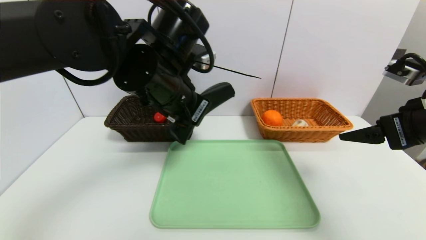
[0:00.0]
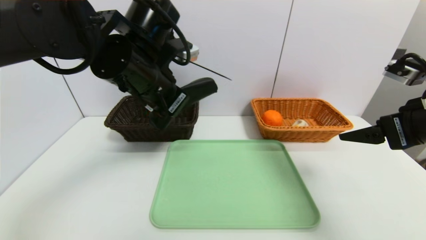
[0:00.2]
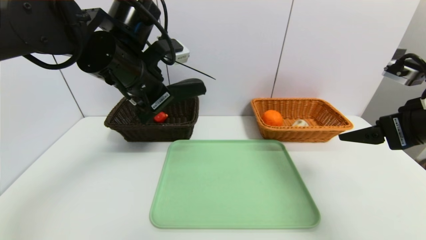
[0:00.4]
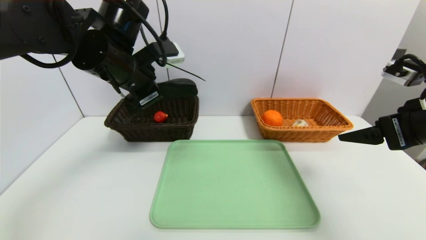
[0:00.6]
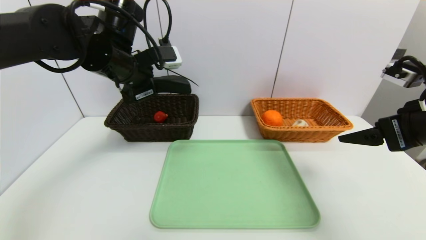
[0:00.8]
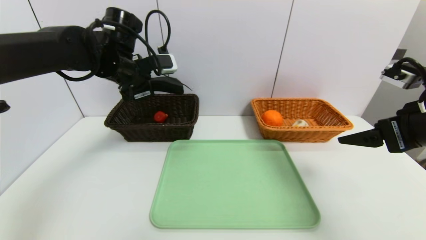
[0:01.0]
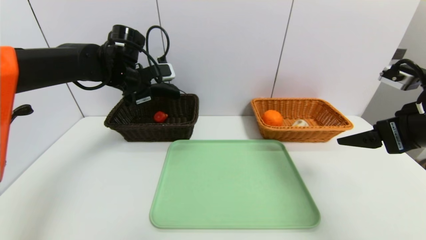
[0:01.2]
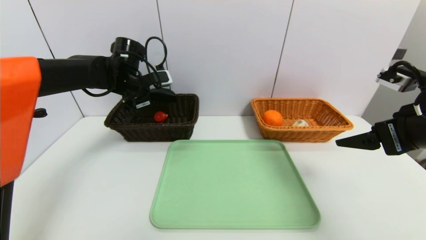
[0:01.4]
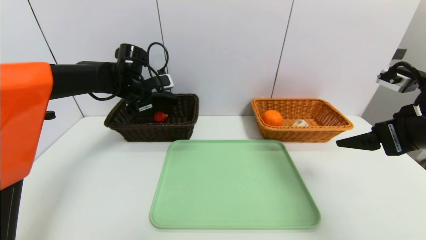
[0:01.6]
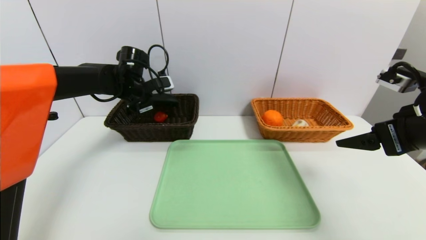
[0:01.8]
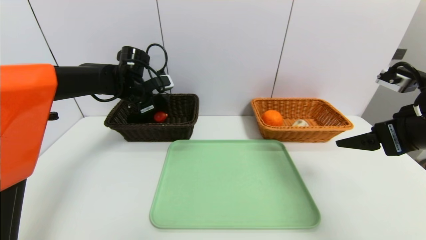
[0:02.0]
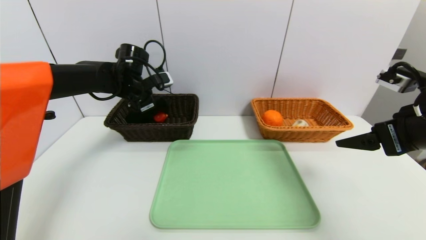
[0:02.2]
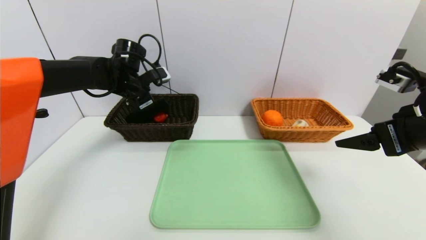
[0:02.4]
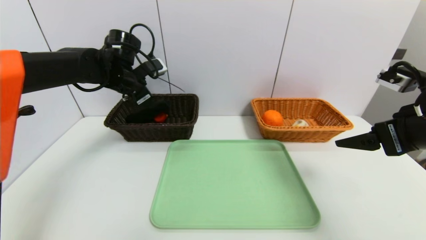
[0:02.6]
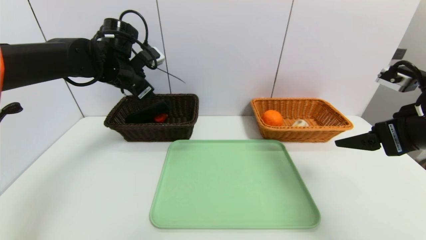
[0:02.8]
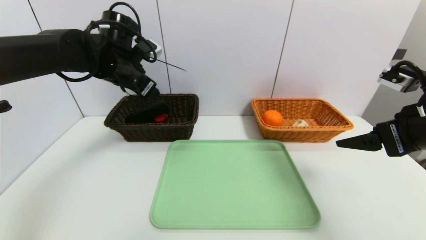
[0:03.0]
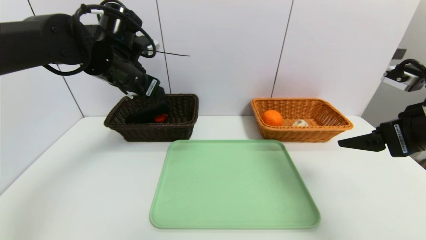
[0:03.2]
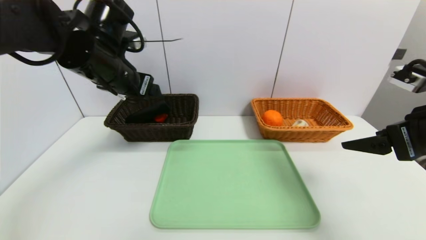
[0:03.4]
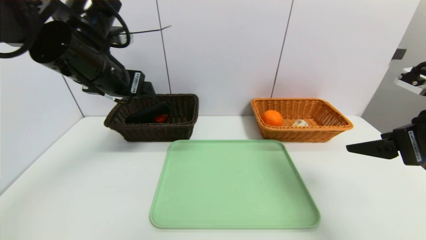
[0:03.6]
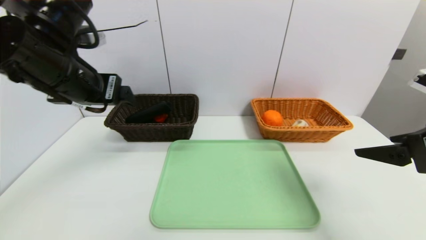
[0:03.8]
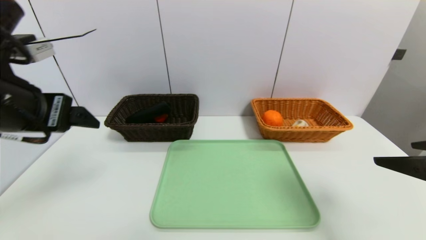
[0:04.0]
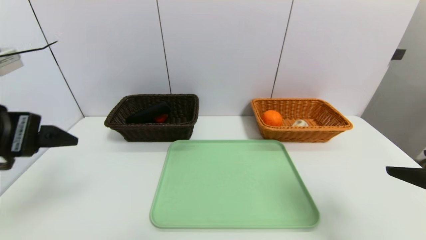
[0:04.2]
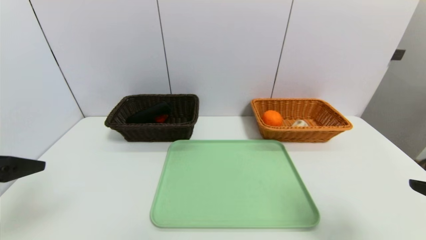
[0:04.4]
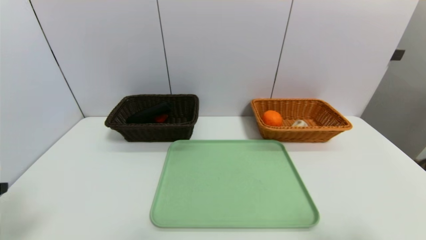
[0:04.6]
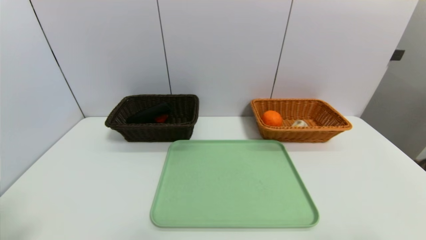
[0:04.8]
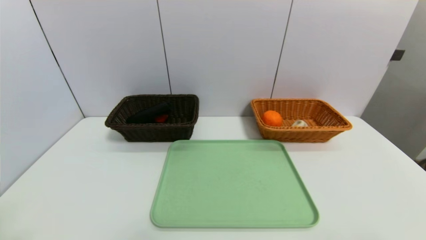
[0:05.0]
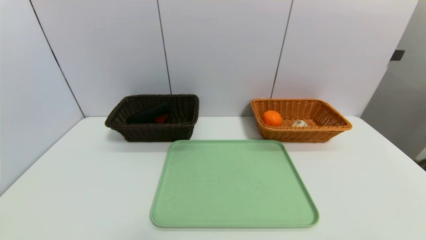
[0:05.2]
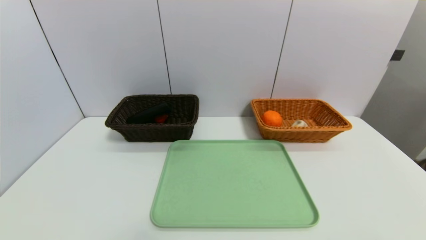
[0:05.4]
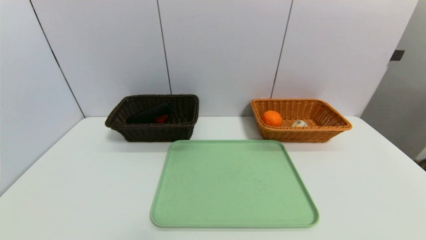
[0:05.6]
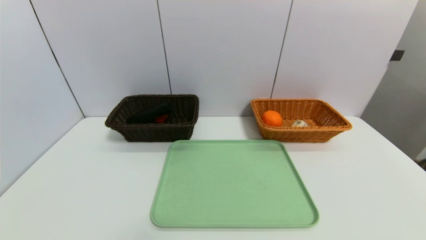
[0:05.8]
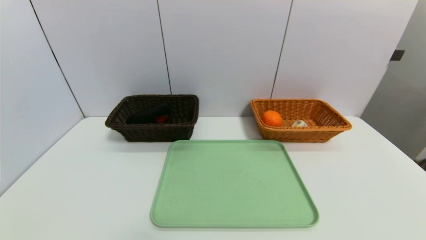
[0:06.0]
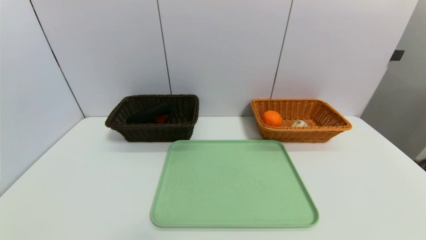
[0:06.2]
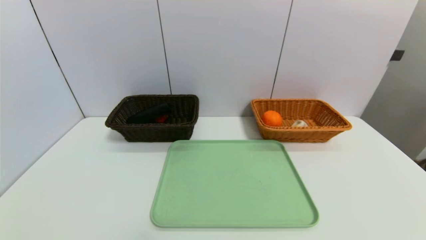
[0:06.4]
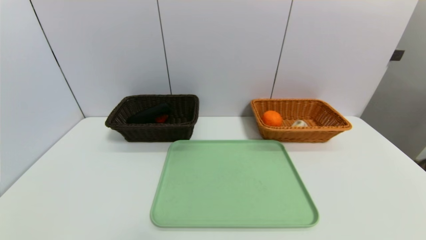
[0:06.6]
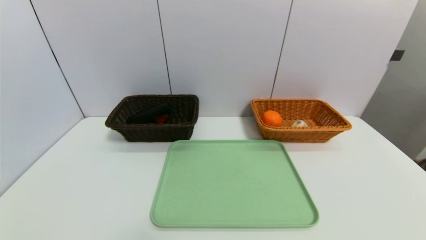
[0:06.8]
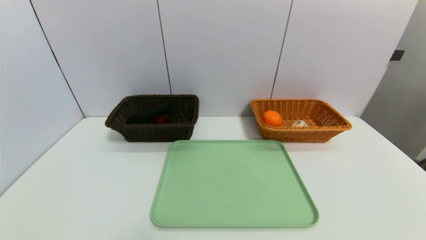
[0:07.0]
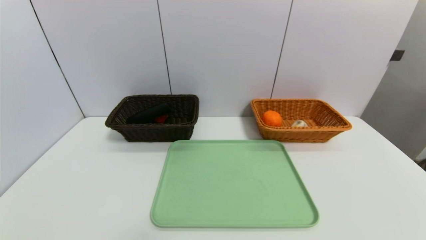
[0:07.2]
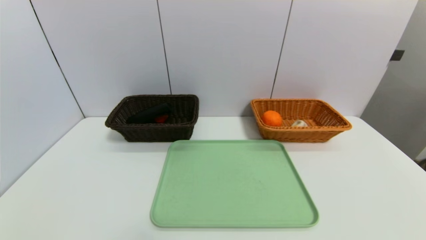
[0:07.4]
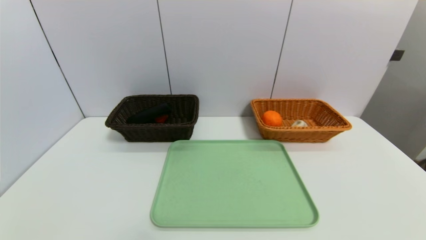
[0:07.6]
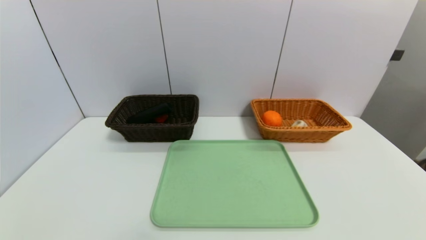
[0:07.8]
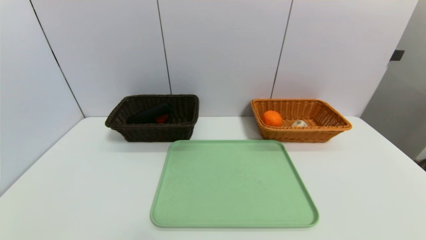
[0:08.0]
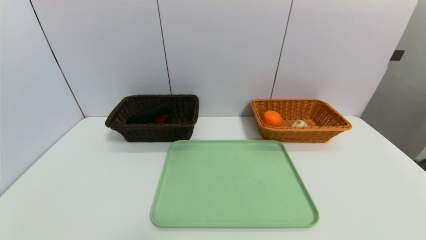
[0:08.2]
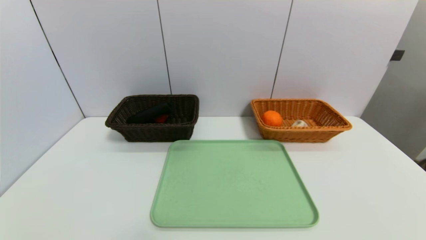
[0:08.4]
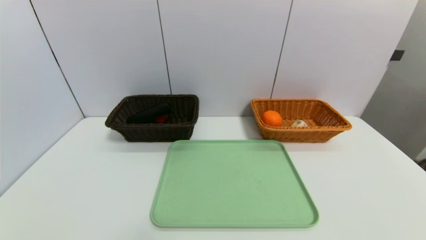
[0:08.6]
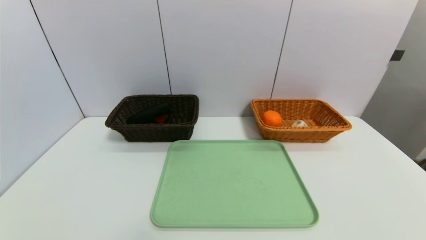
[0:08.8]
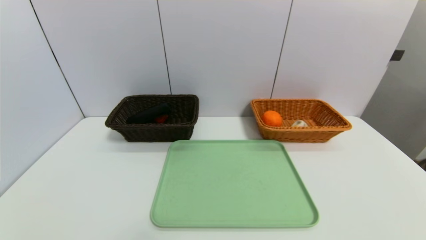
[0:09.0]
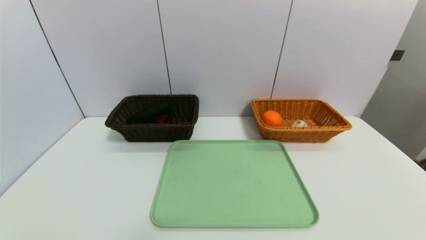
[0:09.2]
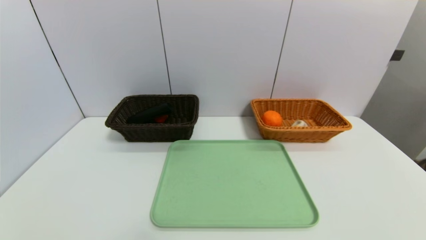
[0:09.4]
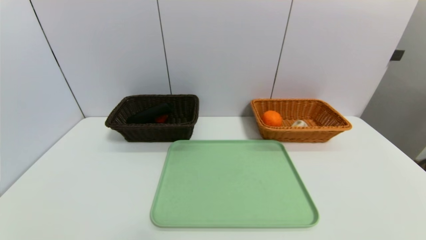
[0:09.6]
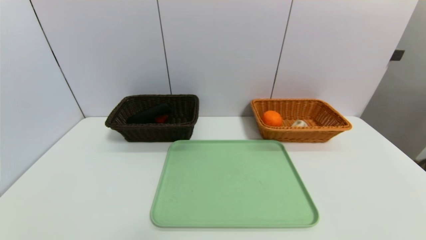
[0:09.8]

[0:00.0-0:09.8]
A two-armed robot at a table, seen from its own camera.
Task of the whole recording: place the food in the right basket with the right gripper, and place the non food items in the left basket with the left gripper.
Step, 0:00.0 to 0:02.8: Grasp the glasses case and put it in the left basket.
0:00.0 to 0:01.4: The left gripper is displaced forward and to the left by approximately 20 cm.
0:01.4 to 0:02.8: The left gripper opens.
0:02.8 to 0:04.2: The right gripper shifts about 10 cm backward, while the left gripper shifts some 25 cm backward.
0:04.2 to 0:05.6: The left gripper travels backward and downward by some 20 cm; the right gripper is displaced backward by roughly 10 cm.

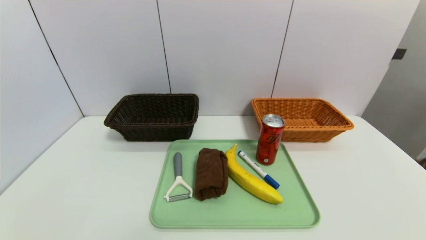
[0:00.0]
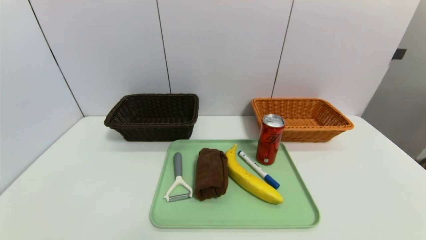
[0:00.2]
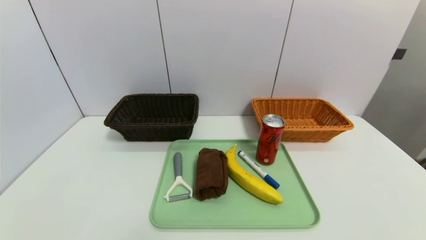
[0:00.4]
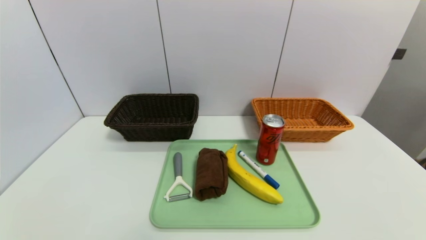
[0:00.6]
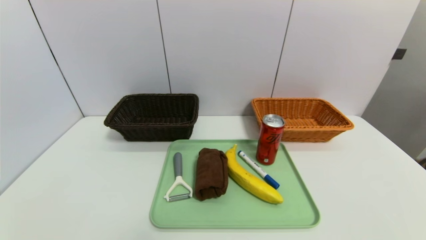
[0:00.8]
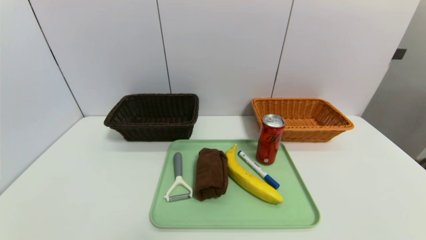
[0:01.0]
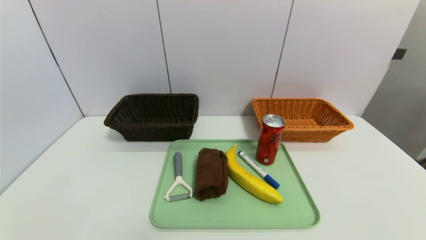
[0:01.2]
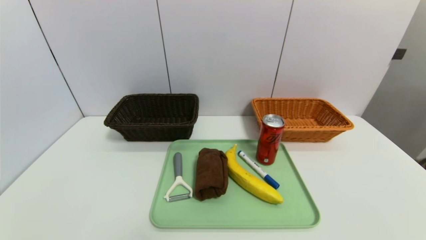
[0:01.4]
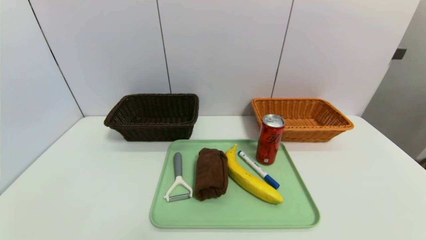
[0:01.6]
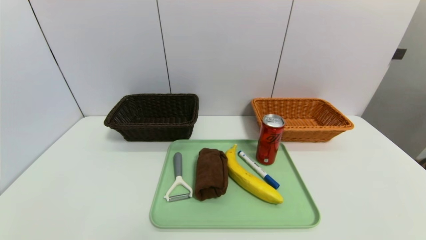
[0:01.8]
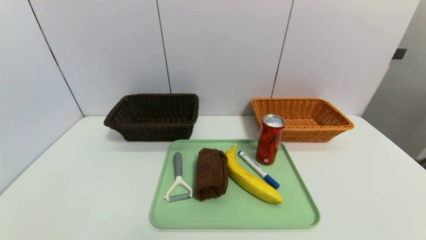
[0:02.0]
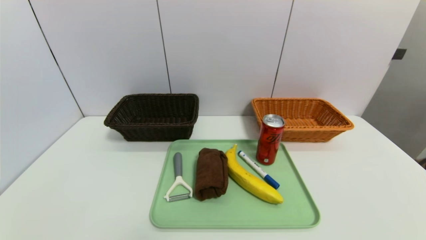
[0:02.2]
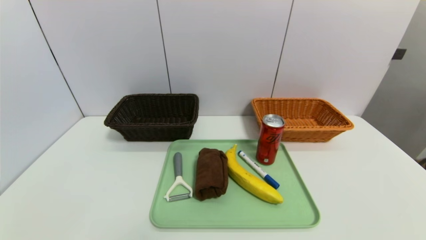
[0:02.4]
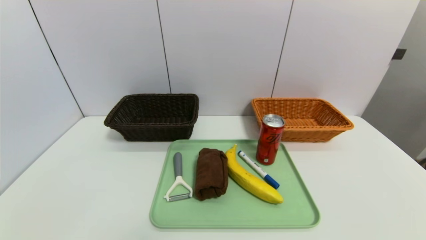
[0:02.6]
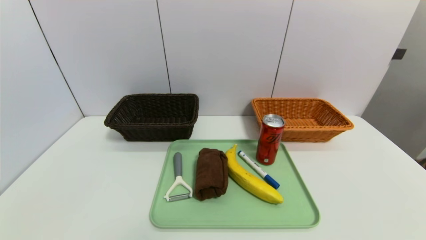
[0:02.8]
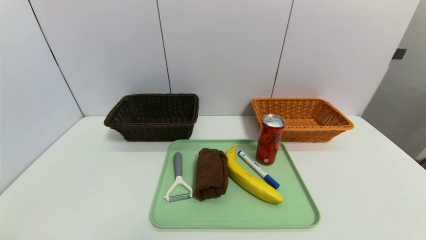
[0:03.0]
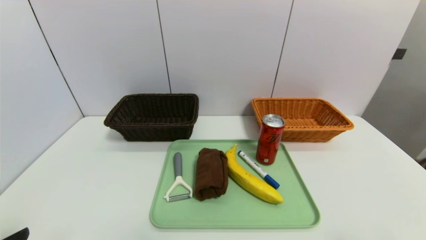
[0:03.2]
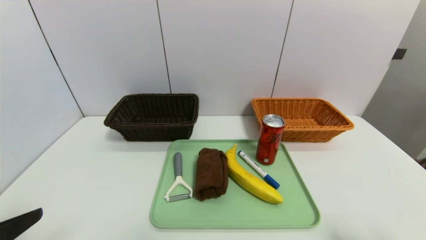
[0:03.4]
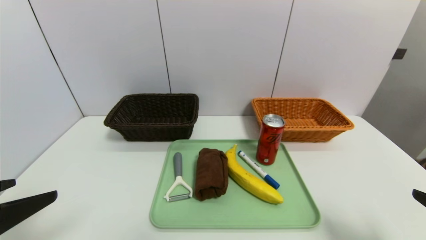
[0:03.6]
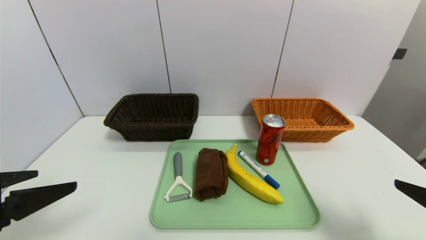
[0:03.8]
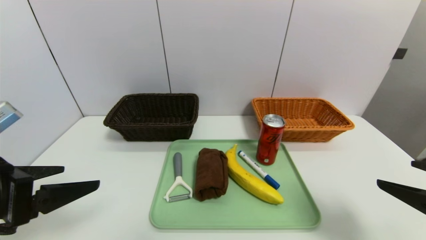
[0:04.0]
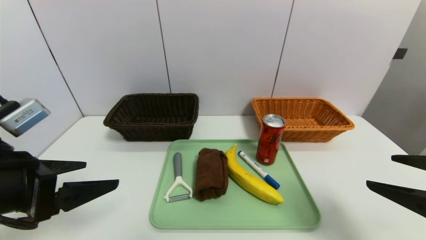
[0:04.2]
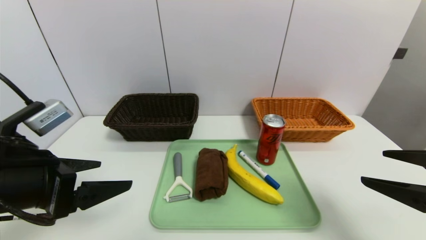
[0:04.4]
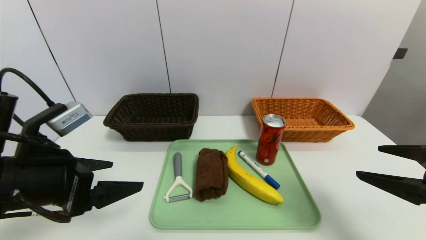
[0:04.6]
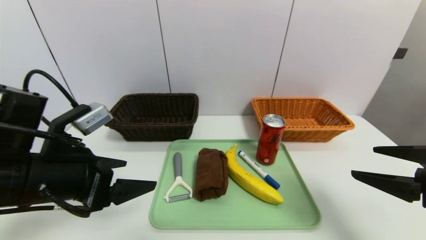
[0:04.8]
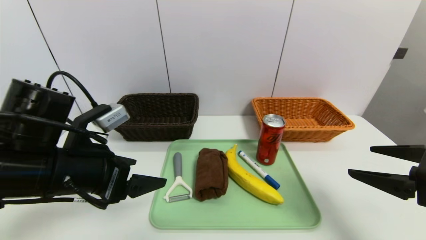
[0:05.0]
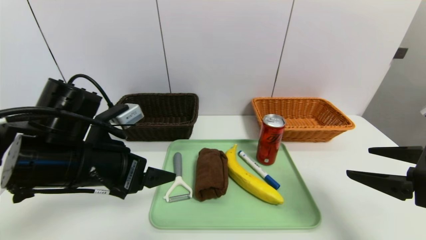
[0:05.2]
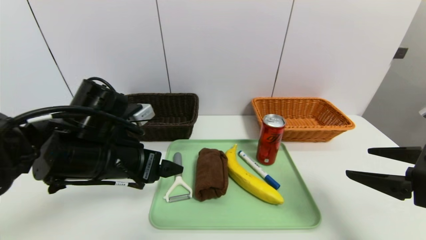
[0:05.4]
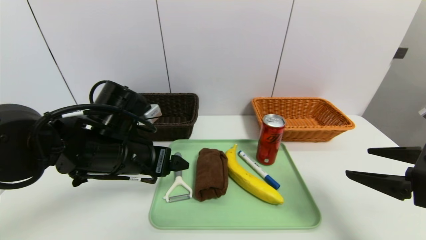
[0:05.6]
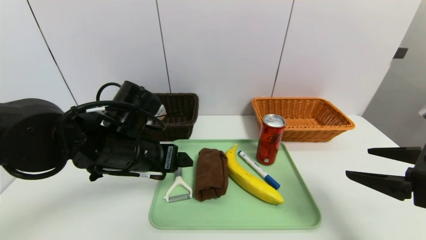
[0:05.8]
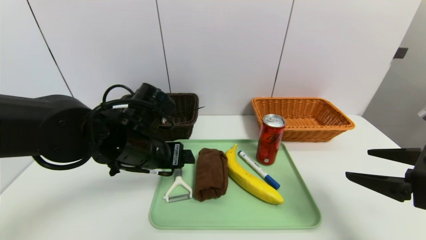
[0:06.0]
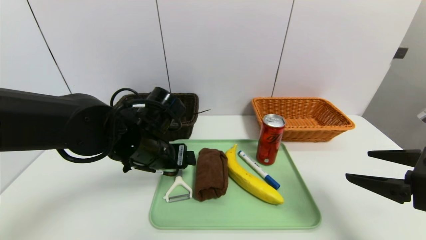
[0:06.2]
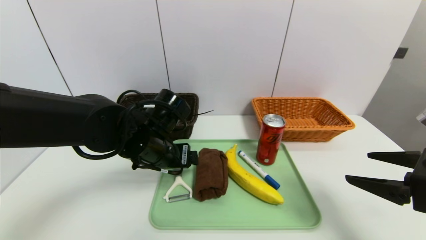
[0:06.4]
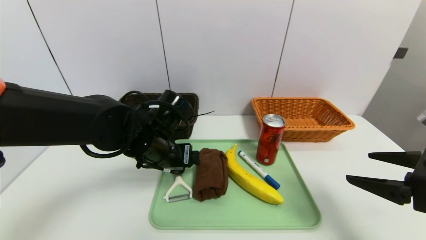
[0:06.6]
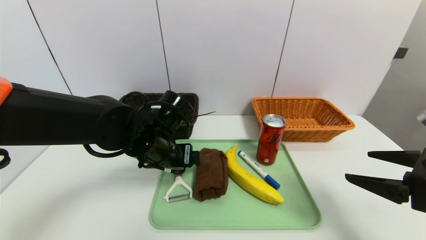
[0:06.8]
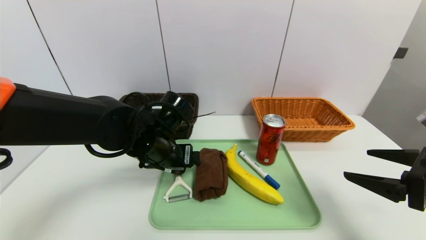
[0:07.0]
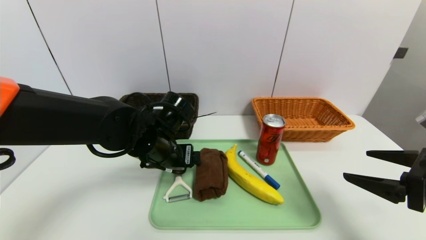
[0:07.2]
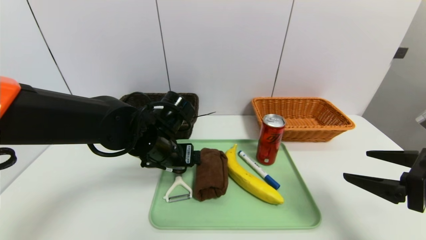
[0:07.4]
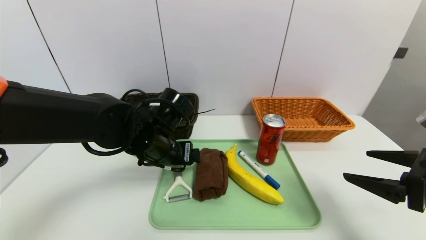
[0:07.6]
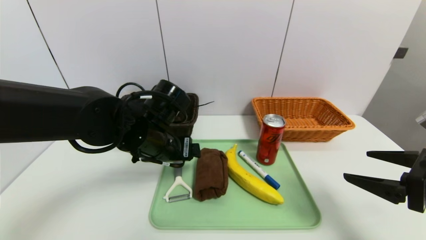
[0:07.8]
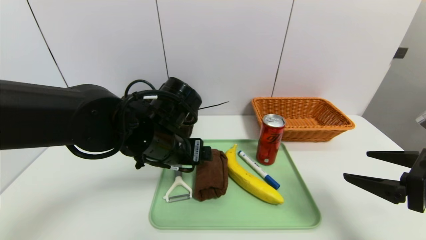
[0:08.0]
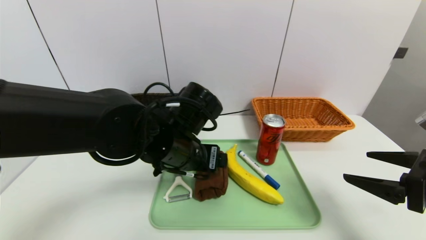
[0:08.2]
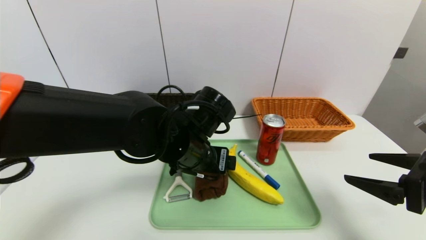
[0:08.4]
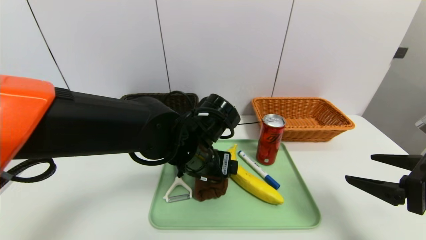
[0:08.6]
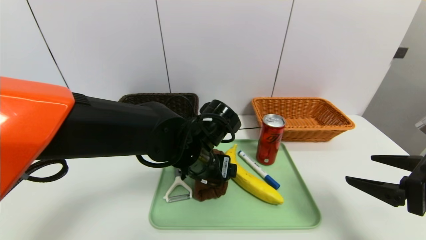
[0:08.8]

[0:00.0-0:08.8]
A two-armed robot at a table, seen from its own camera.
Task of the whole recording: place the food in the right basket with the right gripper, and place the non food items in the left basket with the left gripper.
0:00.0 to 0:01.4: Neither gripper changes place.
0:03.0 to 0:04.4: The two grippers go about 15 cm forward.
0:04.4 to 0:05.8: The left gripper heads to the right and forward, covering roughly 15 cm.
0:05.8 to 0:07.4: The left gripper shifts by roughly 5 cm.
0:07.4 to 0:08.8: The left gripper shifts about 5 cm to the right.
